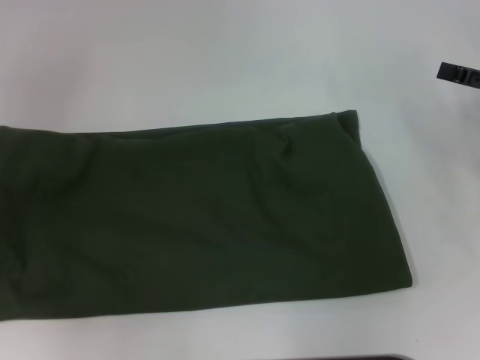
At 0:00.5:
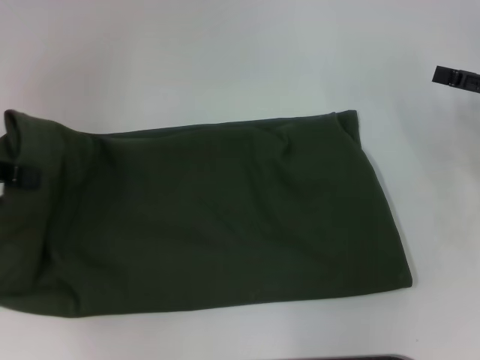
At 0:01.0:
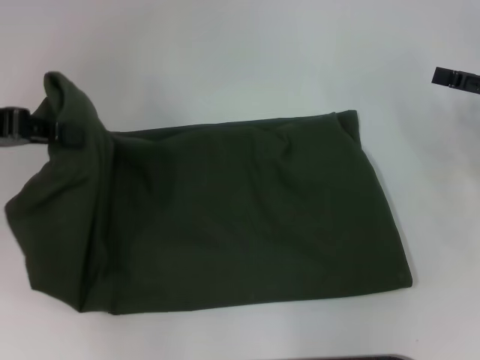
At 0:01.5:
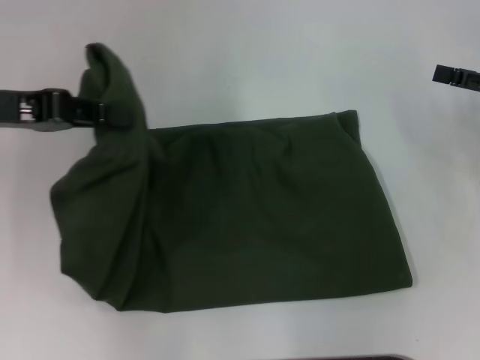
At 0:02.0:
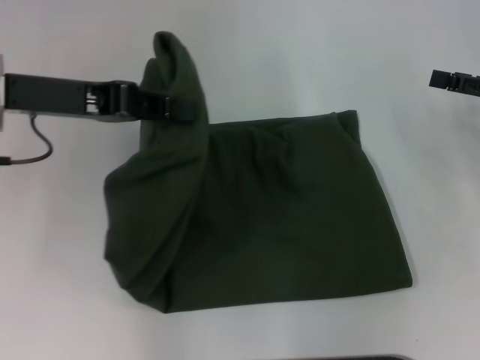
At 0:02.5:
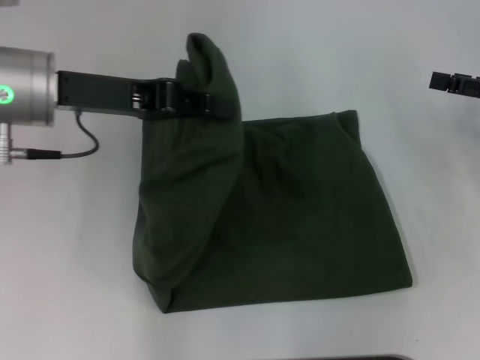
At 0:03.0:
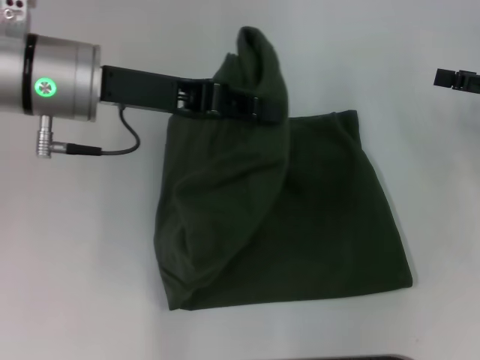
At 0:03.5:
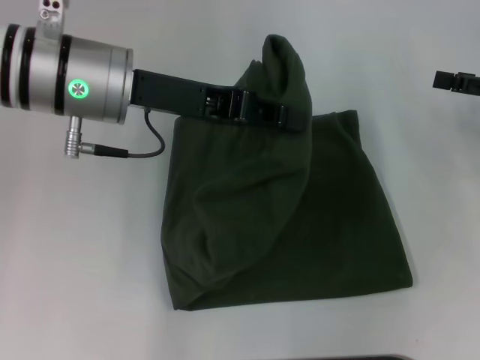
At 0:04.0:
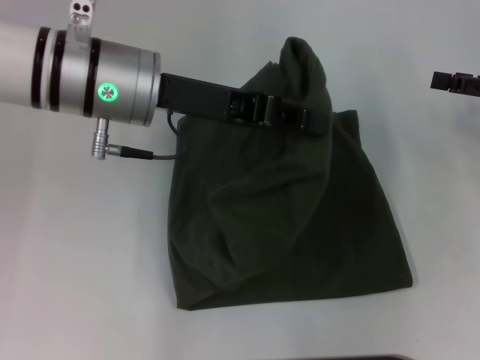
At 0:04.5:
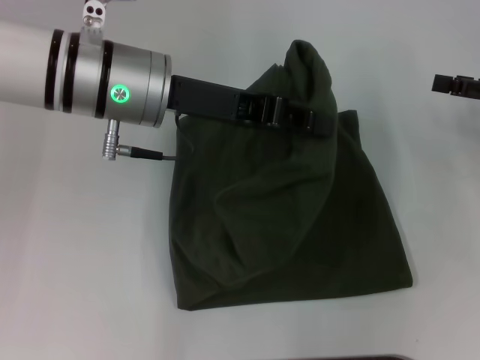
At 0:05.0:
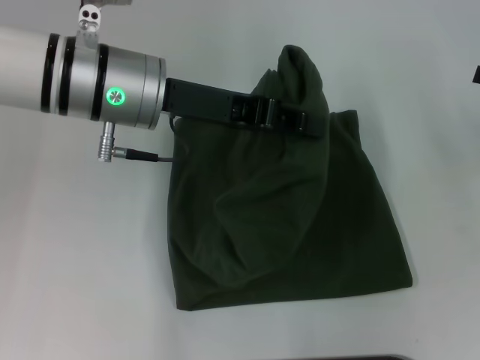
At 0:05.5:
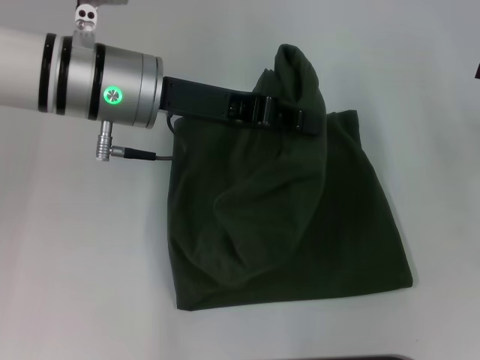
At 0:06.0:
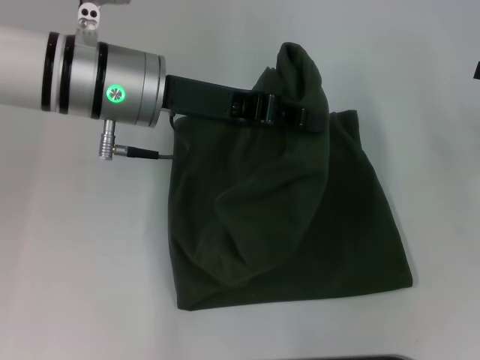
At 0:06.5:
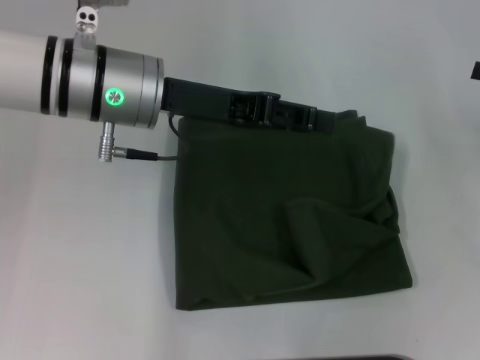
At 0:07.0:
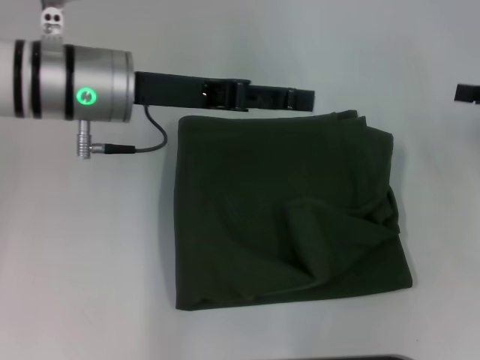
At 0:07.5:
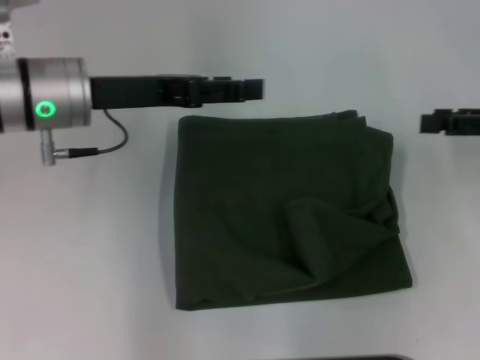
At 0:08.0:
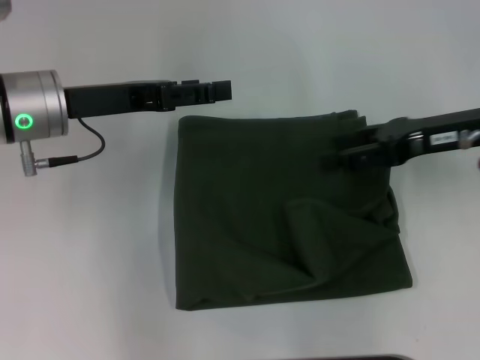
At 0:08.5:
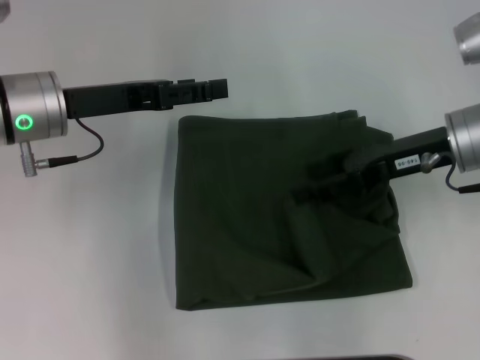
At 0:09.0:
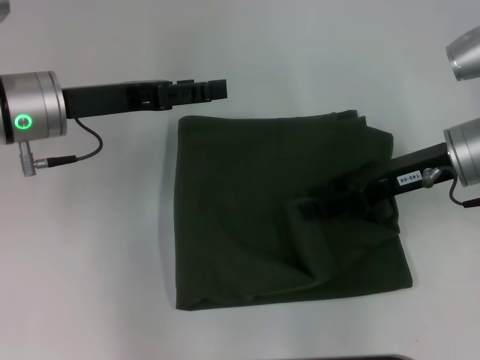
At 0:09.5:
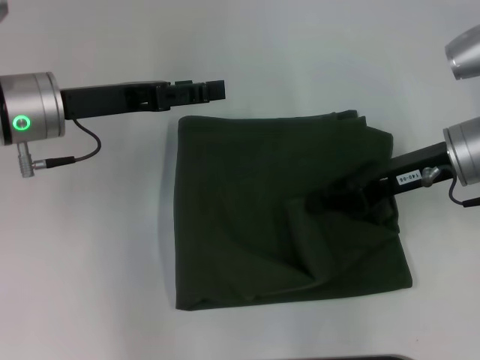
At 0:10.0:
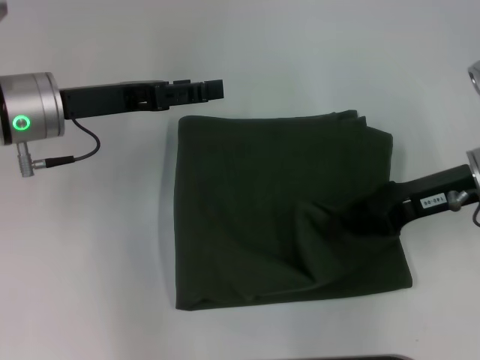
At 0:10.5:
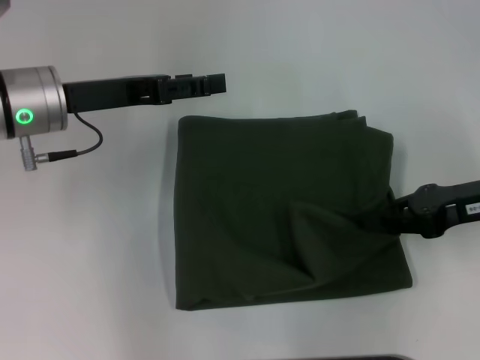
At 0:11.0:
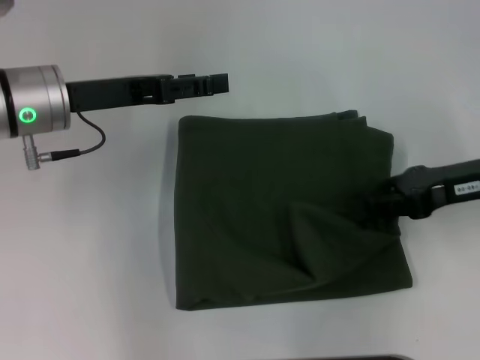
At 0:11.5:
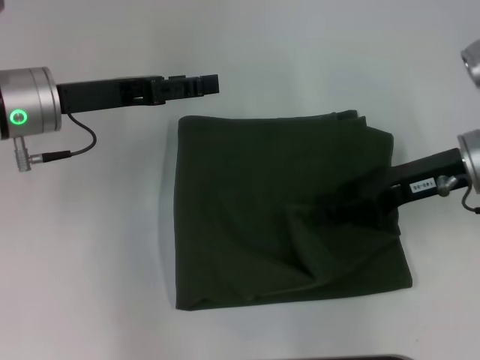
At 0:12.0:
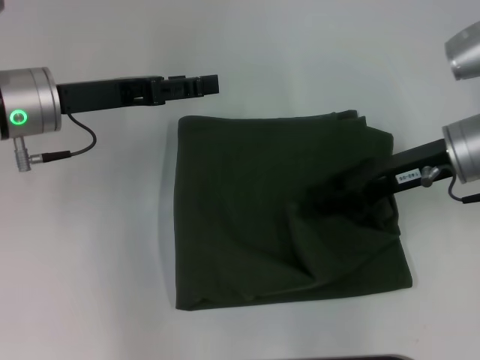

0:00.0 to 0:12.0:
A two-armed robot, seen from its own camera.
Step, 0:00.0 to 0:06.5: Fold the clothes with your left hand.
0:00.0 to 0:02.0: The left gripper shifts some 15 cm to the right.
0:02.0 to 0:04.0: The left gripper travels to the right by some 10 cm.
0:04.0 to 0:06.0: The grippers move only a little.
0:06.0 to 0:08.0: The left gripper moves to the left, some 10 cm, and opens its fingers. Meanwhile the right gripper is displaced to the left by roughly 15 cm.
0:08.0 to 0:10.0: The right gripper closes up.
0:10.0 to 0:12.0: The right gripper opens up.

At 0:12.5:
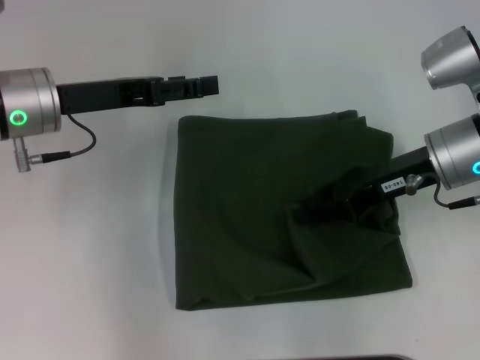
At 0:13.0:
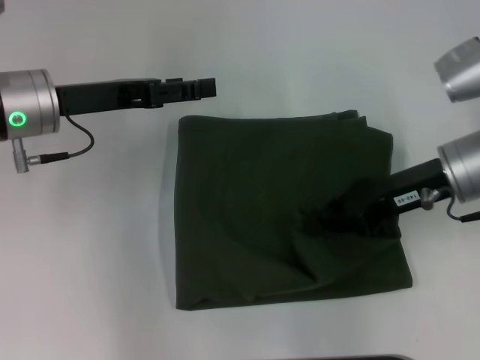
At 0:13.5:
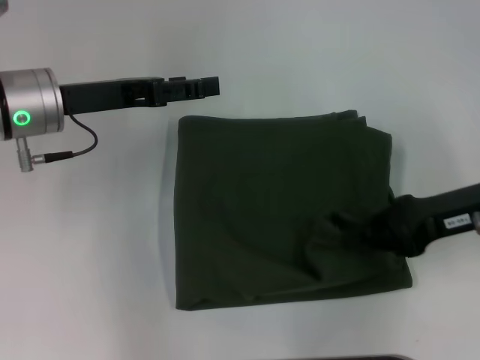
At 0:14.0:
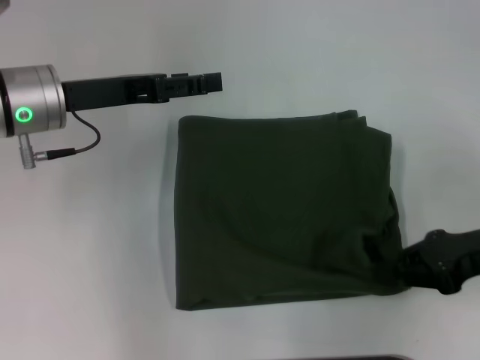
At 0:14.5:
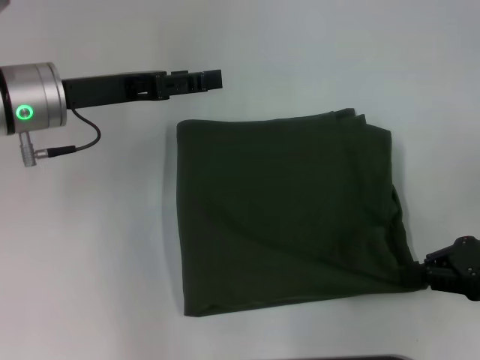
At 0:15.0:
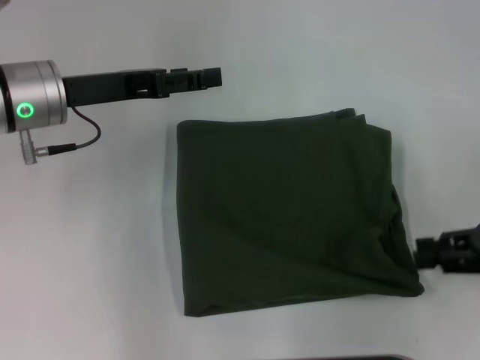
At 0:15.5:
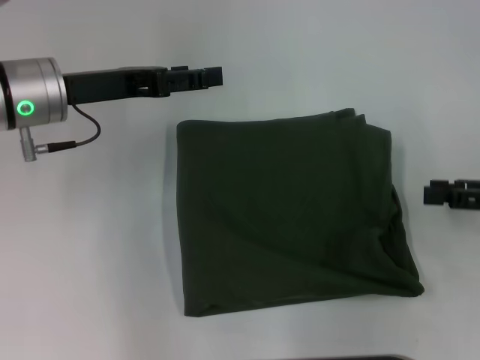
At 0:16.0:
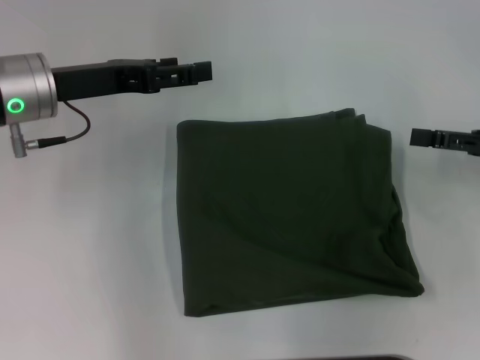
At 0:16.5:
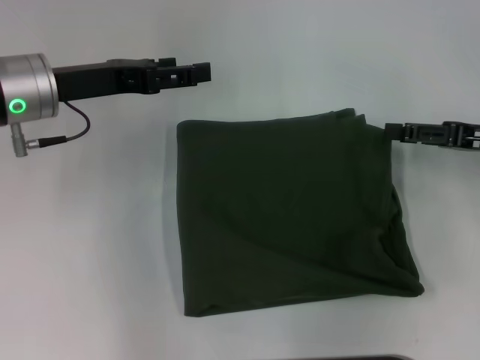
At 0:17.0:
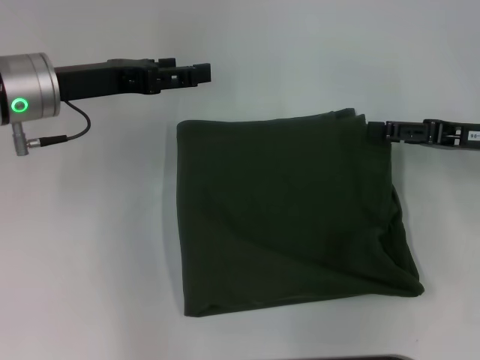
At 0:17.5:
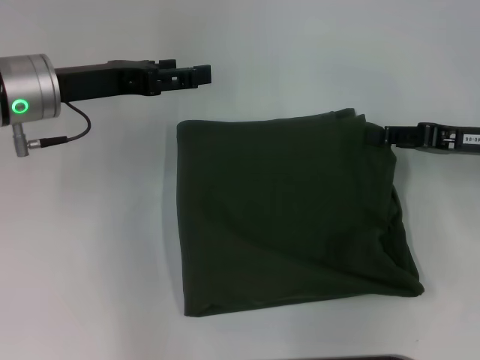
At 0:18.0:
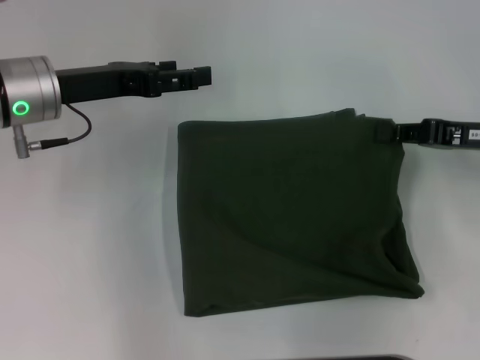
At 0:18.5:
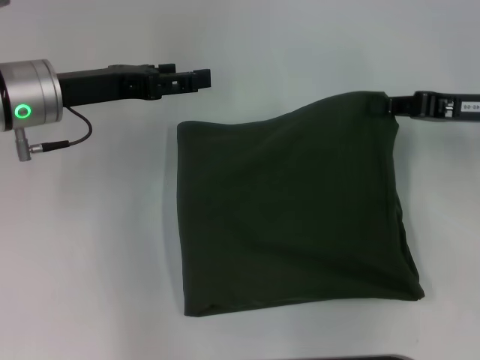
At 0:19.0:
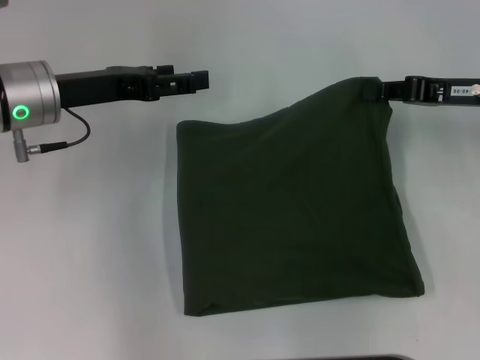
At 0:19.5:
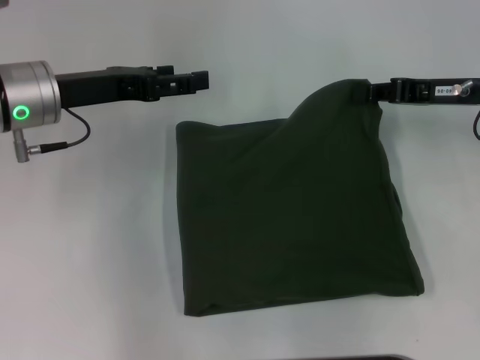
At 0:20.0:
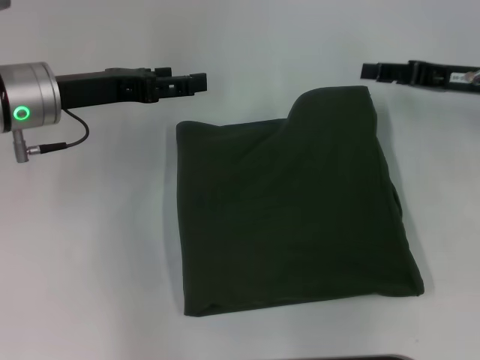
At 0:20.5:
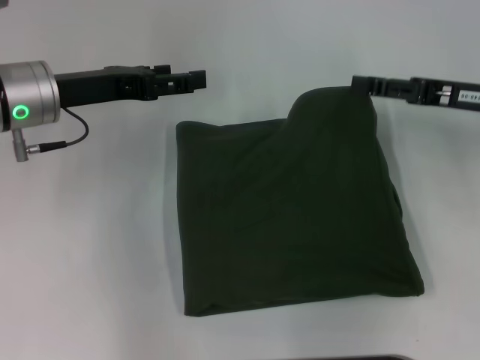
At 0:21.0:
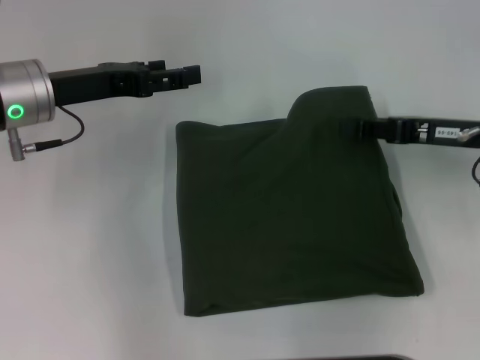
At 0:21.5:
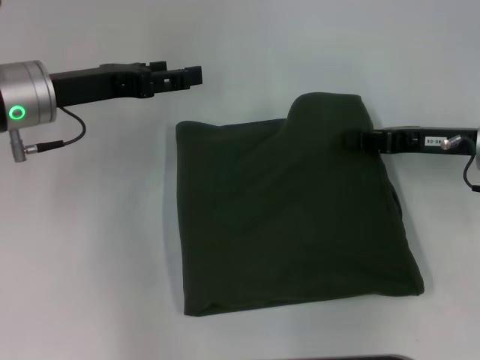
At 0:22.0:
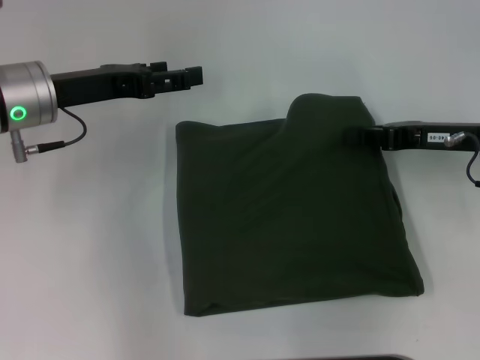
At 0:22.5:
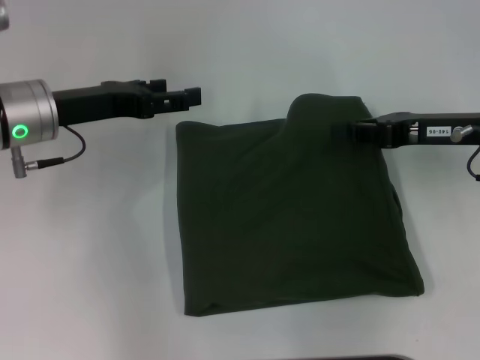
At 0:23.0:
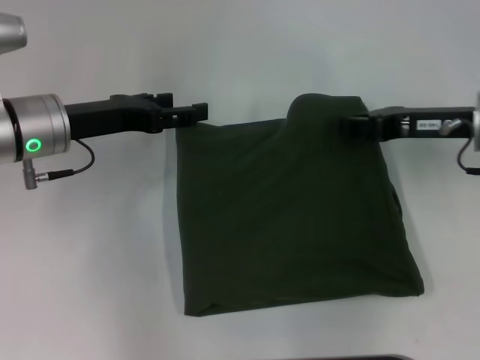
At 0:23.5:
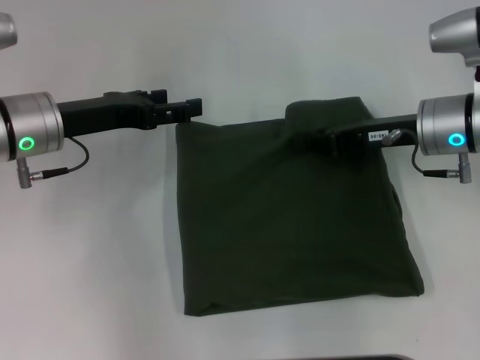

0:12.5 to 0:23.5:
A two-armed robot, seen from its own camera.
0:12.5 to 0:14.5: The right gripper is displaced to the right and backward by some 15 cm, and closes its fingers.
0:14.5 to 0:16.0: The right gripper travels forward by approximately 5 cm, and opens its fingers.
0:16.0 to 0:18.0: The right gripper changes place by about 5 cm, and closes.
0:18.0 to 0:20.0: The right gripper changes place by roughly 5 cm.
0:20.0 to 0:21.5: The right gripper changes place by approximately 5 cm, and opens, then closes once more.
0:21.5 to 0:23.5: The right gripper goes about 5 cm to the left.

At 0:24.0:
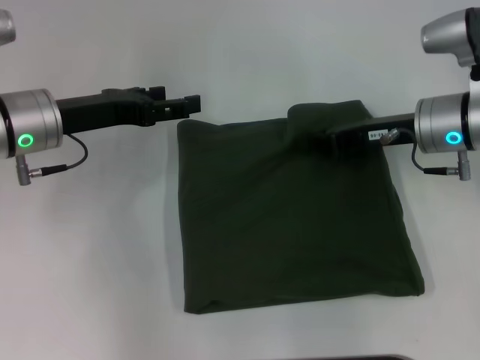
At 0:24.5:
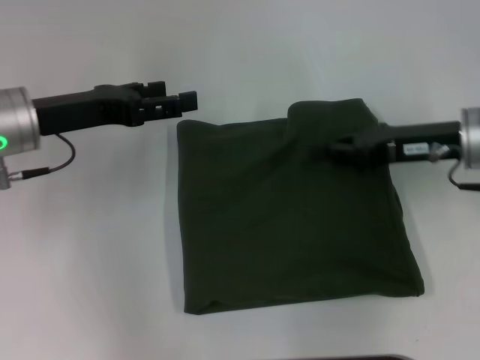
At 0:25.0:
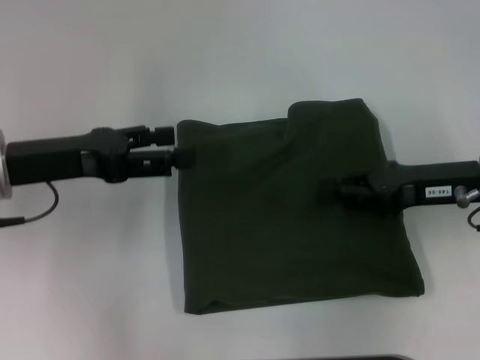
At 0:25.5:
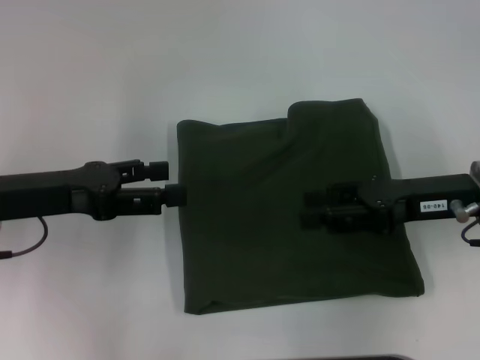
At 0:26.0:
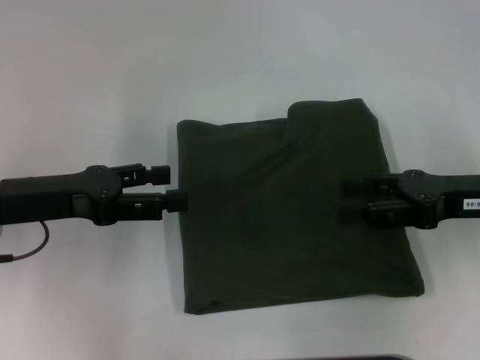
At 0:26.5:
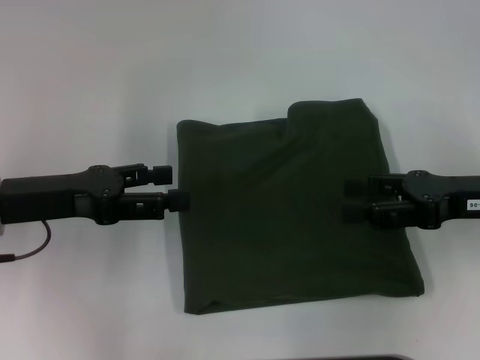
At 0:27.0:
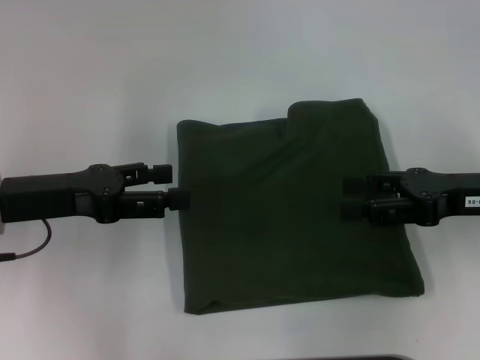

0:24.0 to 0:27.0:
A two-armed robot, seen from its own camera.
0:24.0 to 0:25.5: The two grippers go about 10 cm backward. The right gripper opens its fingers.
0:25.5 to 0:27.0: The right gripper opens up.
